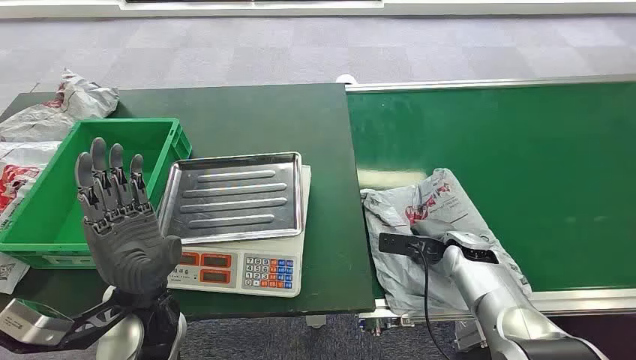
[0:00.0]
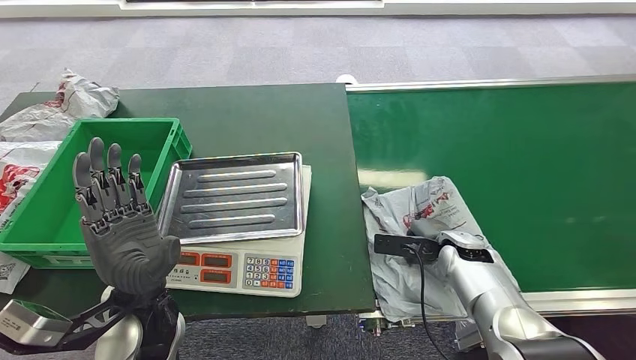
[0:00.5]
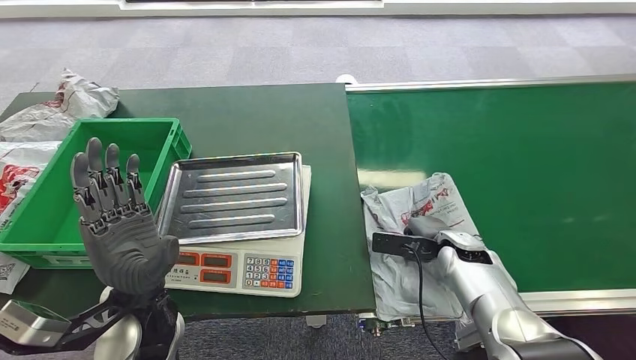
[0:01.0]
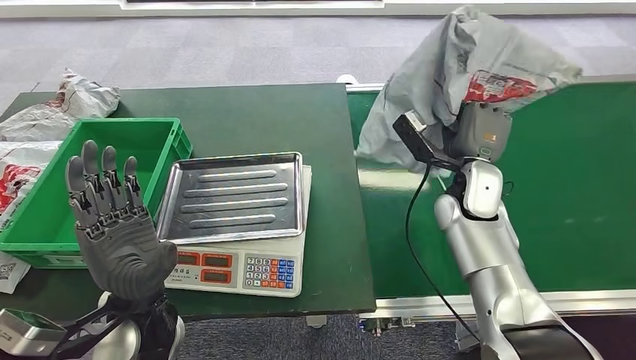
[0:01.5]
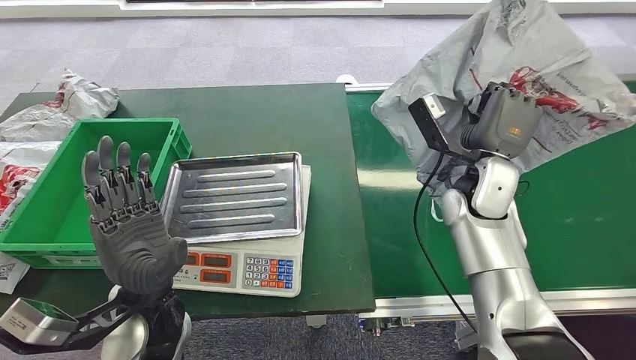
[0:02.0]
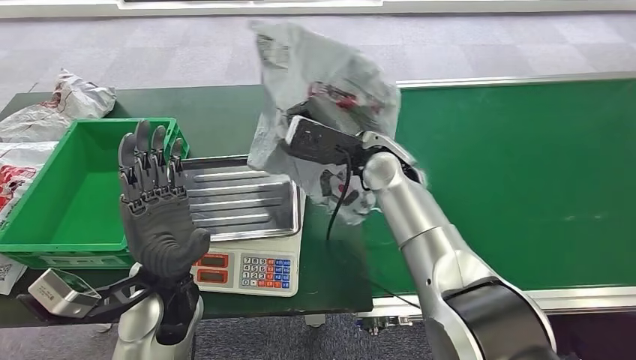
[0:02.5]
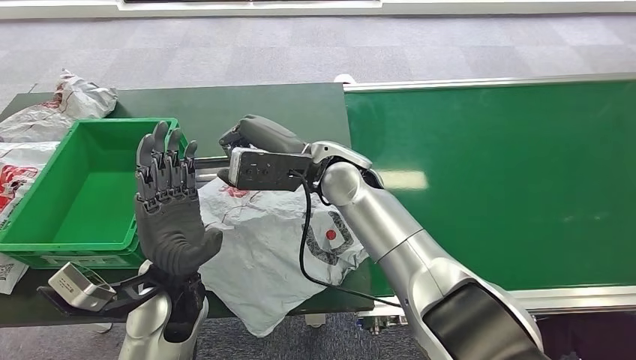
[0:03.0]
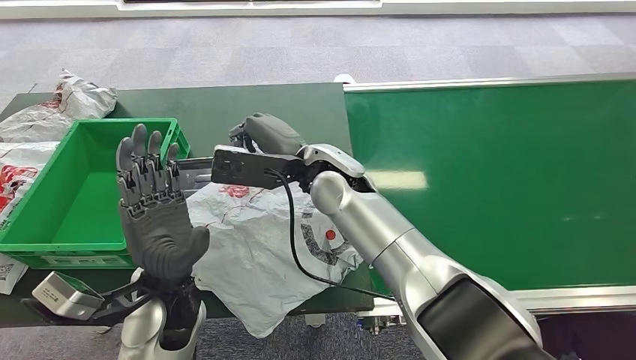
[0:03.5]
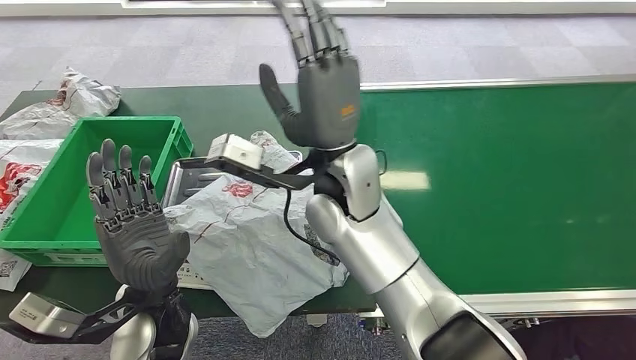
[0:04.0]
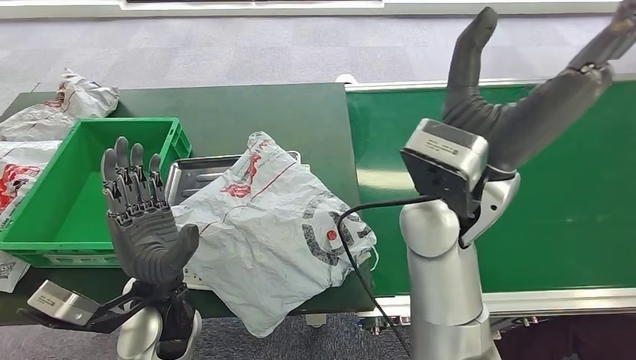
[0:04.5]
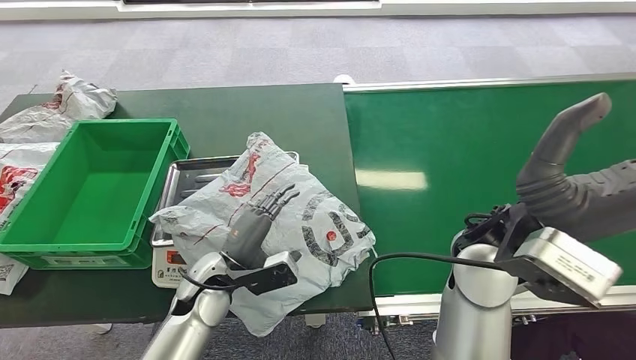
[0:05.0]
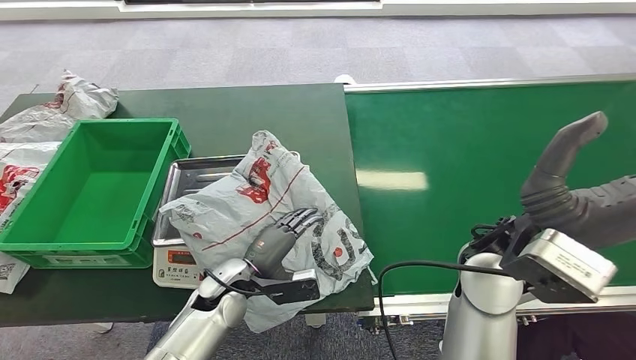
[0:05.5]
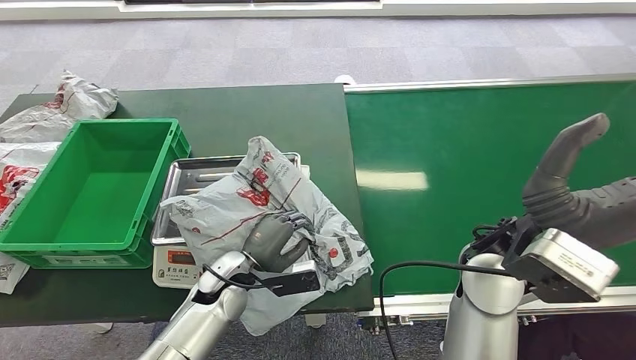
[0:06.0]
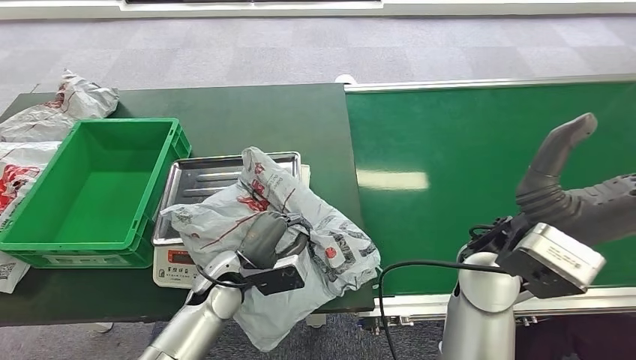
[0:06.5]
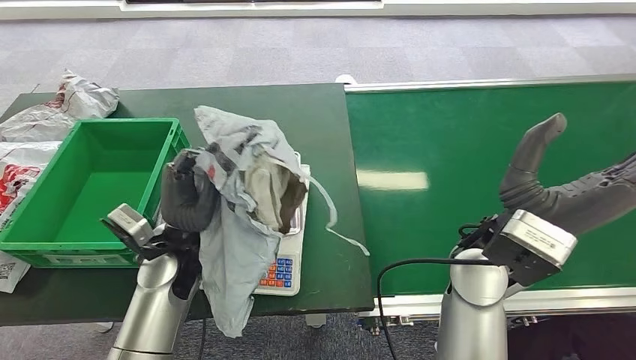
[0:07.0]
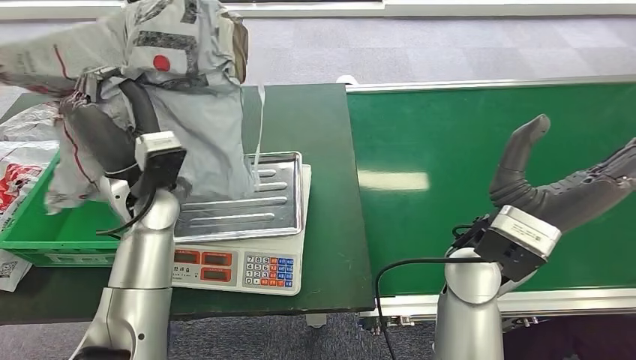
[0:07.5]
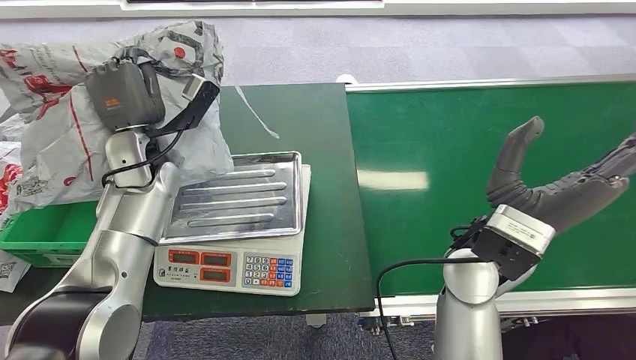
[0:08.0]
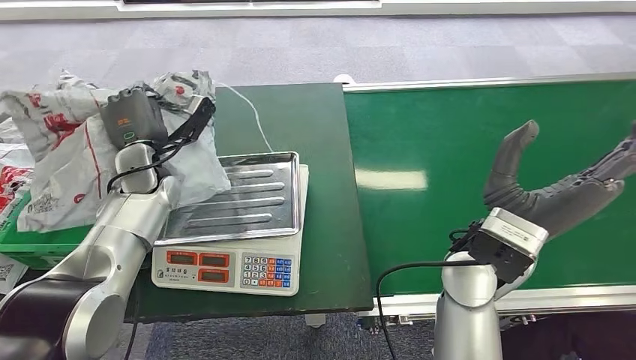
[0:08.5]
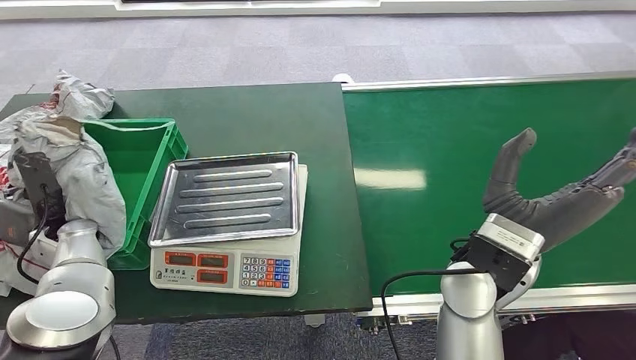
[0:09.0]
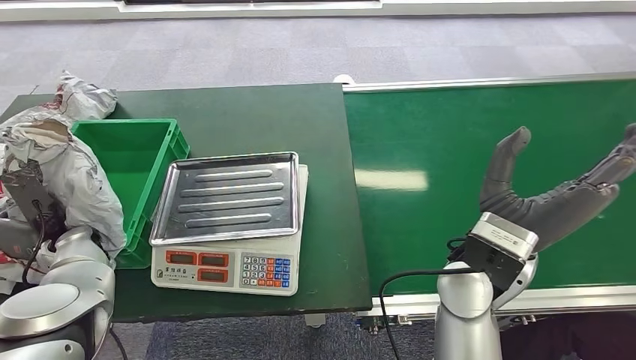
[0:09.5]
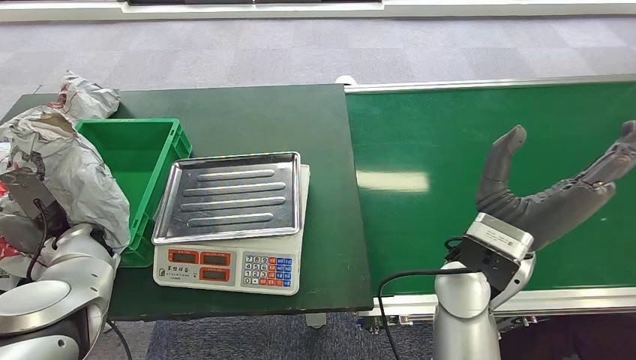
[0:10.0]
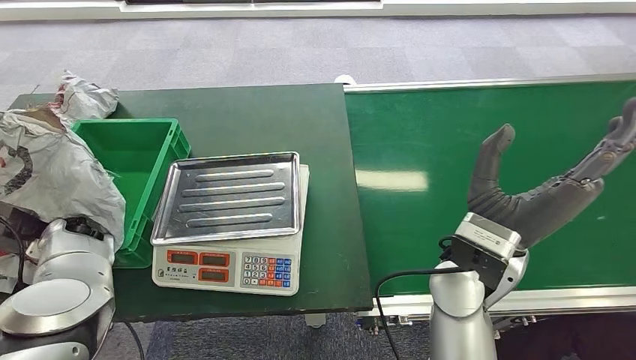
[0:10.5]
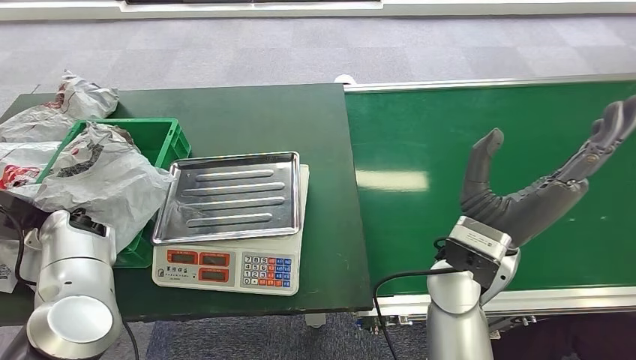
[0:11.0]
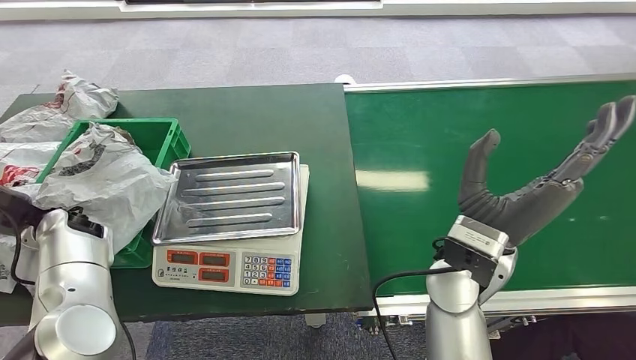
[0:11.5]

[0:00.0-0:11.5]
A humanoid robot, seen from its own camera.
Step, 0:00.0 to 0:01.5: Pick up the package from the conveyor belt.
Step, 0:02.0 to 0:03.5: Place the package onto the inbound machine.
Step, 0:04.0 to 0:07.0: Pick up the package from the inbound machine.
Step, 0:07.5 to 0:11.5: Place the package into the parcel locker.
